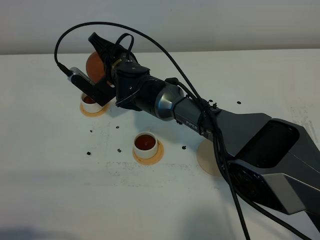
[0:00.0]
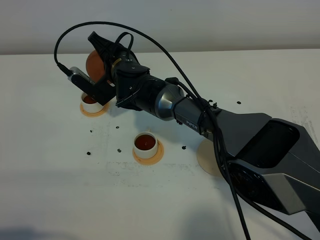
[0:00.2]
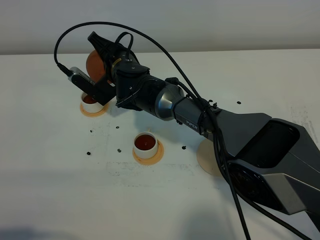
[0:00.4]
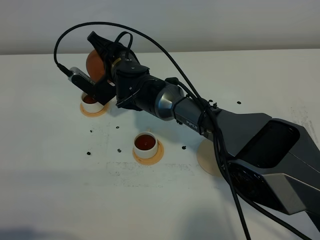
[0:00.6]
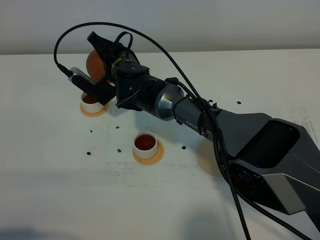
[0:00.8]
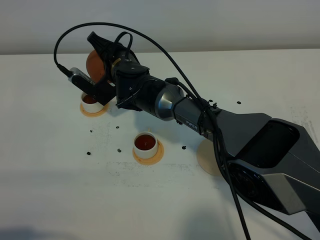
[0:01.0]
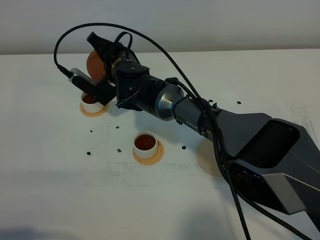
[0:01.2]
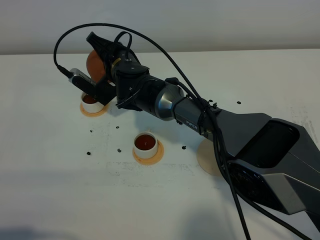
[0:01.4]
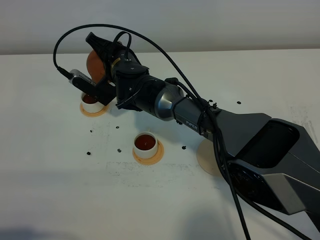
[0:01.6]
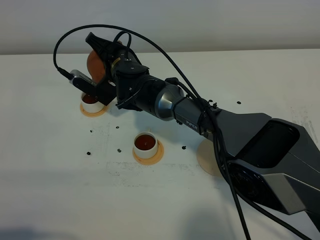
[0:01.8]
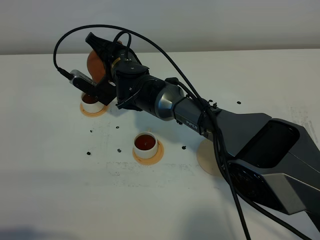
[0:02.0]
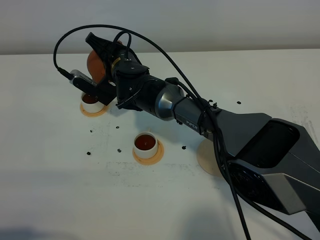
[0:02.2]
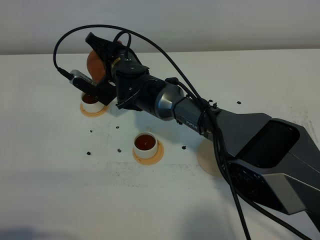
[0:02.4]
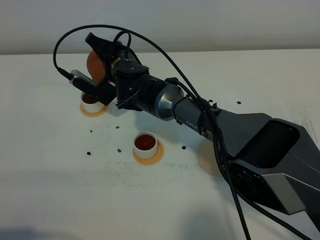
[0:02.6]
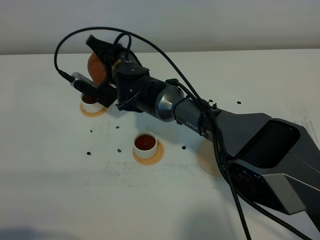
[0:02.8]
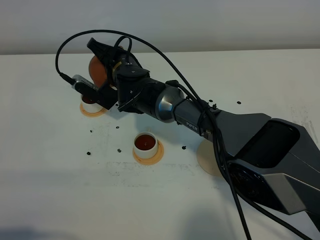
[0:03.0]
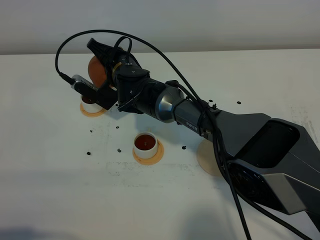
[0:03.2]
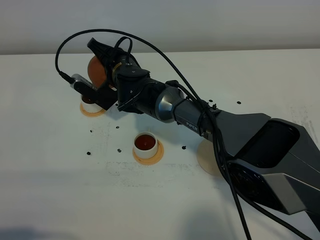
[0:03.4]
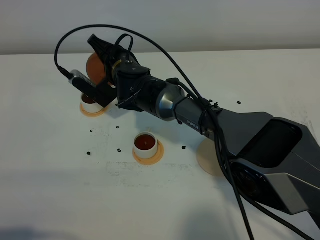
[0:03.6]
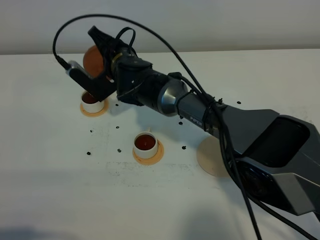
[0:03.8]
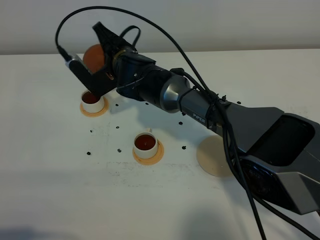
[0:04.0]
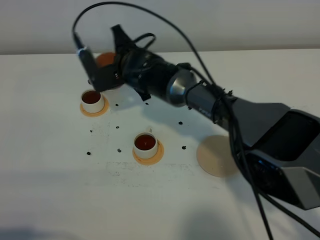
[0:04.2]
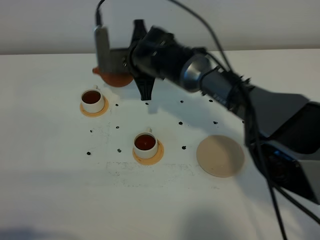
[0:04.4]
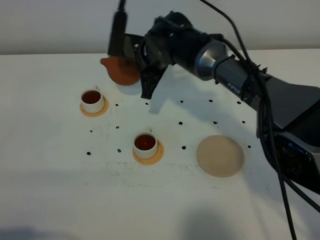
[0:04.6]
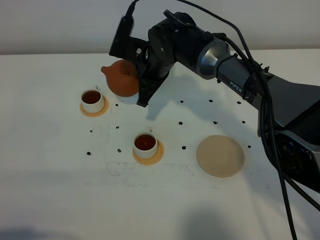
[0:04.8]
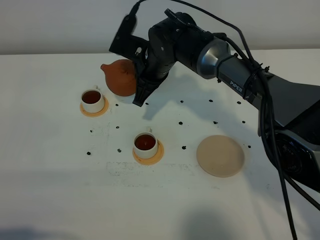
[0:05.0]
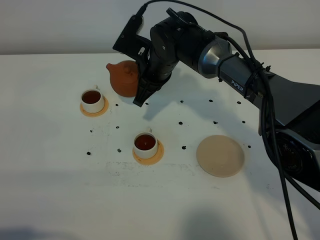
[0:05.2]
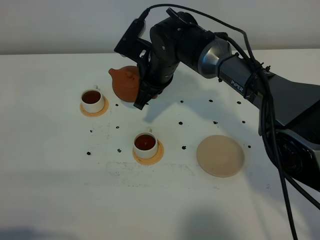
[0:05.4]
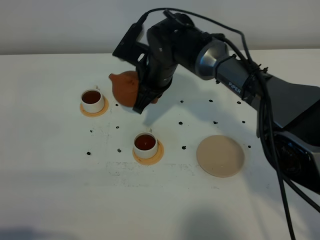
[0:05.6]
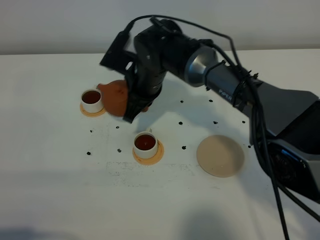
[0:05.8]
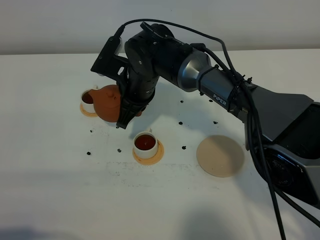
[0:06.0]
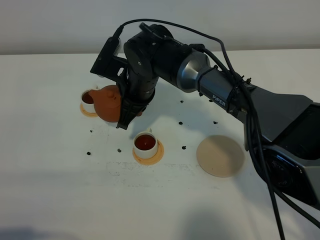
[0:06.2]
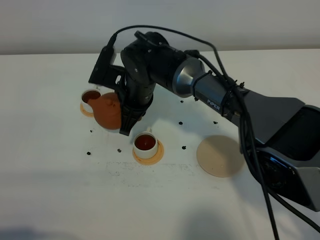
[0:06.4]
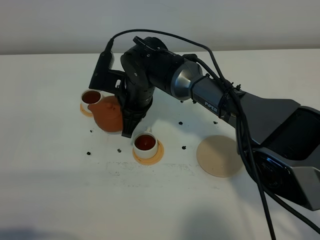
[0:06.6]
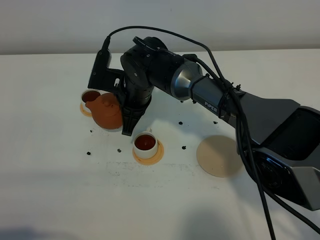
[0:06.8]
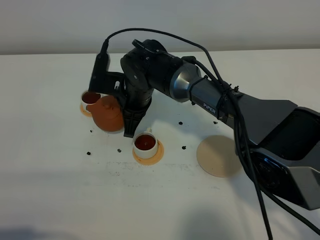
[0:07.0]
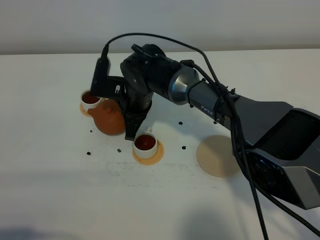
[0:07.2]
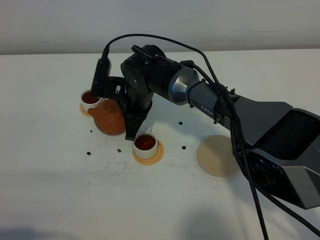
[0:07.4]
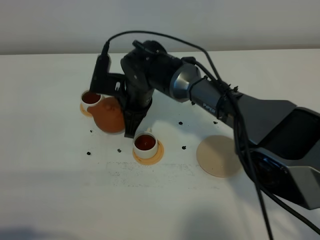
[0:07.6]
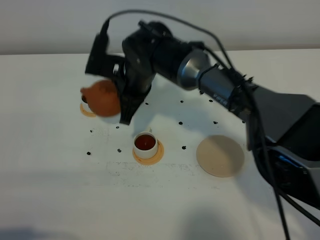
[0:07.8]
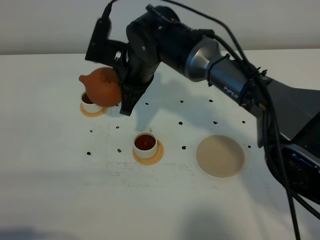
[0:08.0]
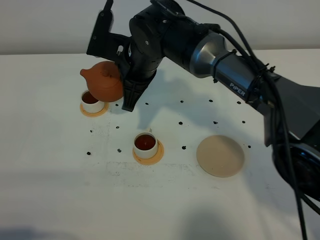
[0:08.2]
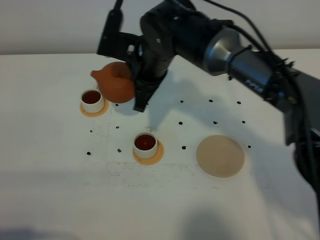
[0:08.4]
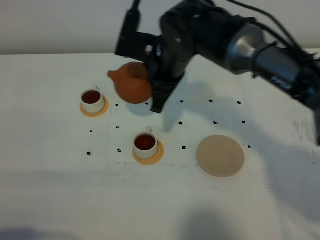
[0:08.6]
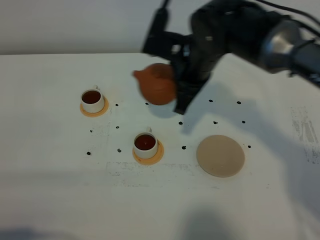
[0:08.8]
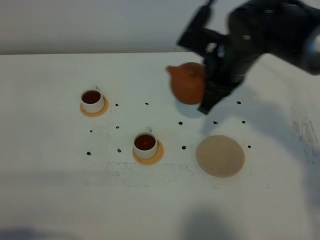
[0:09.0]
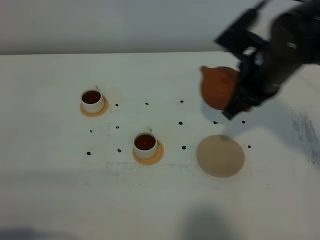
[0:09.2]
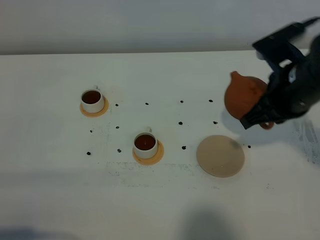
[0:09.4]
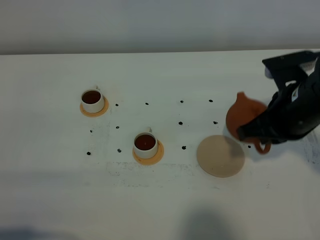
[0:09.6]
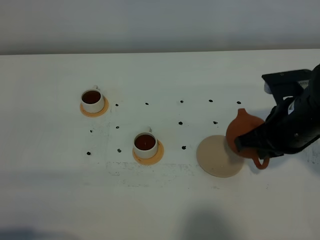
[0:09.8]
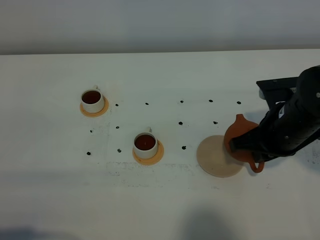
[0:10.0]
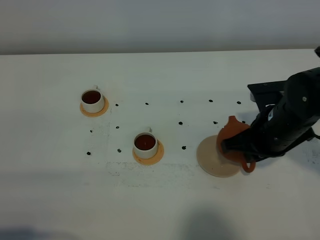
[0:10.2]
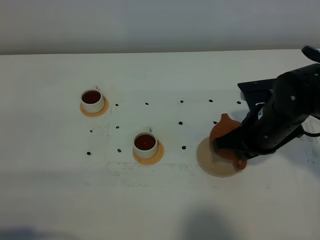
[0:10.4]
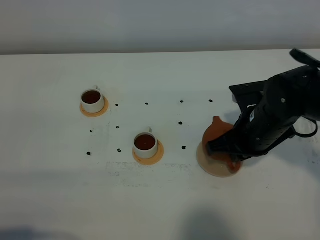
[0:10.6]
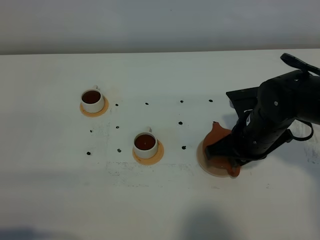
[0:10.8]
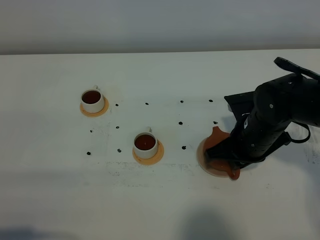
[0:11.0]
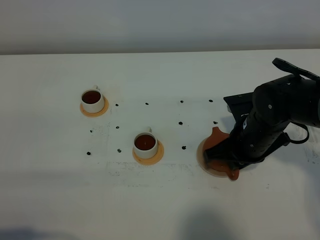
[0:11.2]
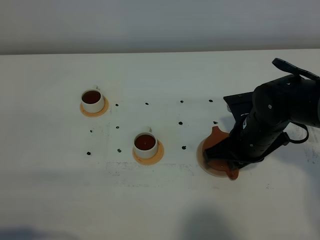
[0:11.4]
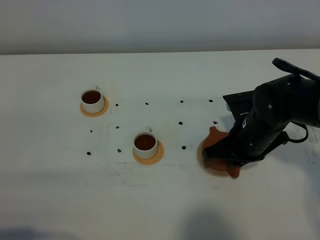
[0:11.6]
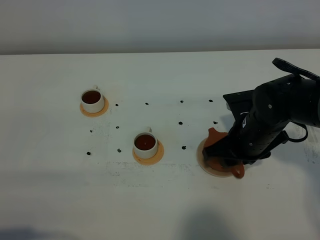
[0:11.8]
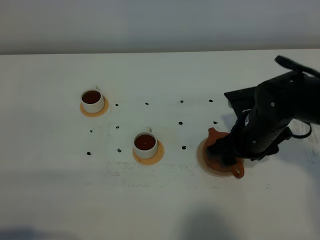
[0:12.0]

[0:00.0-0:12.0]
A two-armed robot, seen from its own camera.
Task of the whole recording: grasp the brown teapot and pour the tea into the two white teacups one by one, put the brown teapot back in its original place.
Step, 0:00.0 to 0:03.8: Pour tea into the teacup with the right gripper.
0:00.0 to 0:01.6: There are only small adjustments of the grippers.
0:01.6 to 0:03.0: Both grippers stay about where they are.
0:03.0 to 0:04.4: The right gripper goes some 5 cm to the right.
0:04.4 to 0:06.0: The right gripper shifts by roughly 5 cm.
0:06.0 to 0:07.6: There are only small adjustments of the grippers.
0:07.6 to 0:09.0: The right gripper shifts roughly 20 cm to the right and upward.
0:09.0 to 0:10.4: The right gripper is displaced downward and backward by about 10 cm.
0:10.4 to 0:12.0: The right gripper opens up.

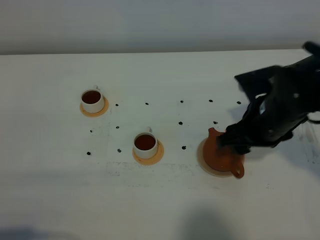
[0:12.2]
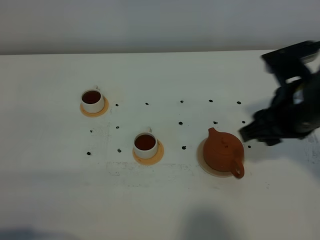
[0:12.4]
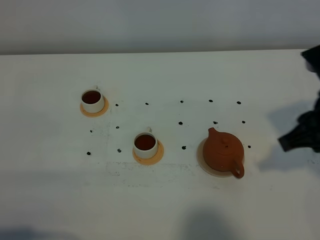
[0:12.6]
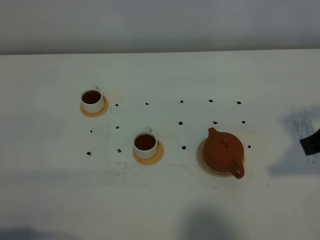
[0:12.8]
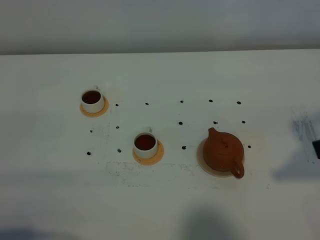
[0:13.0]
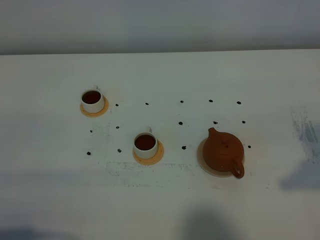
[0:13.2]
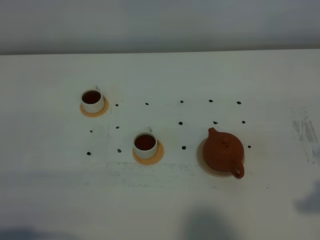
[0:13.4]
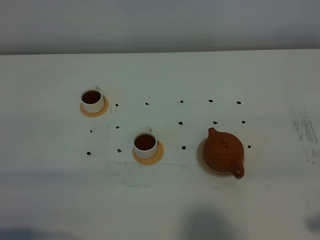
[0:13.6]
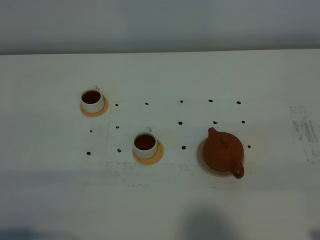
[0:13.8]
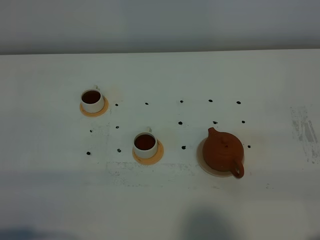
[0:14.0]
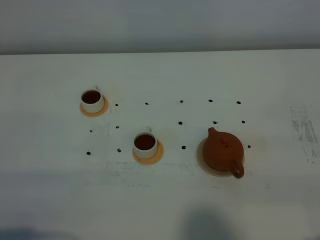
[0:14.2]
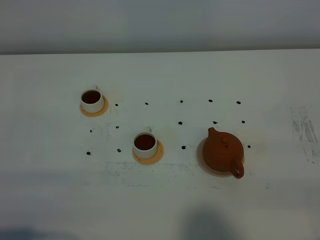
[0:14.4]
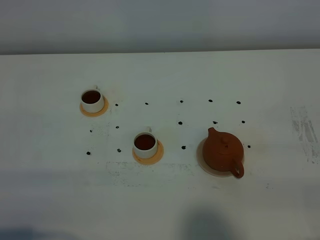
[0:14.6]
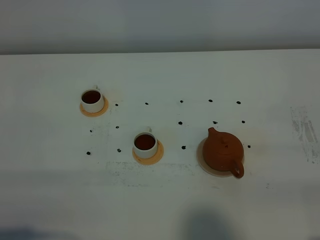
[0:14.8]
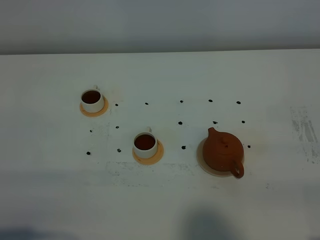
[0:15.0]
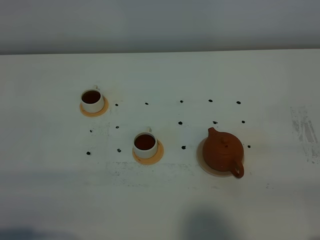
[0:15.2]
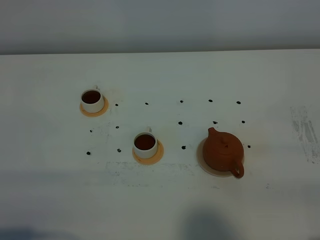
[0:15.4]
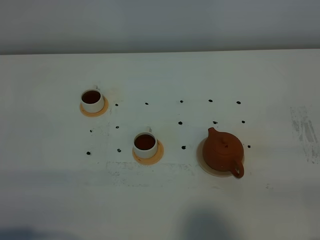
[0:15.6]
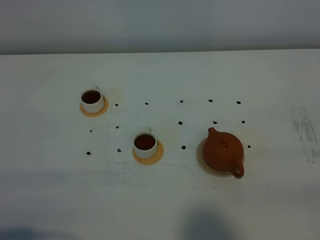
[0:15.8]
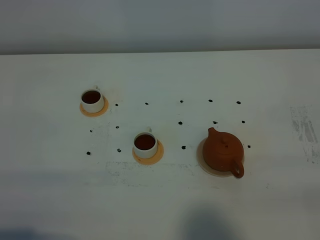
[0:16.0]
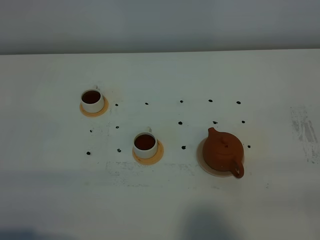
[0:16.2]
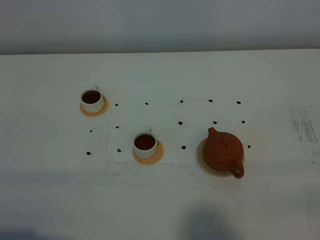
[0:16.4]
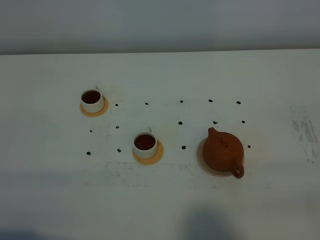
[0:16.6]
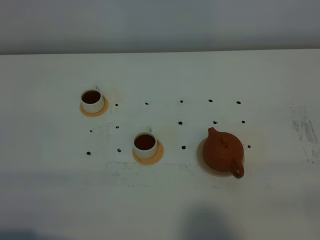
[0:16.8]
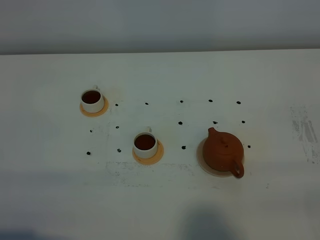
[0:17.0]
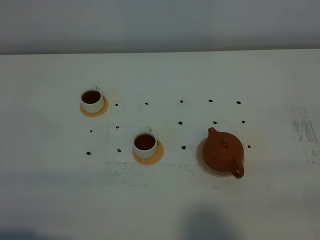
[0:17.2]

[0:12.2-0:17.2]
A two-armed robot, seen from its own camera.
Task of the whole recording: grasp the brown teapot and pour the tea into the two white teacups one by one, put the brown teapot back in its original place.
0:12.2 to 0:13.8: The right gripper heads backward and to the right, covering approximately 25 cm, and closes up.

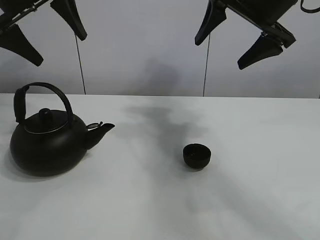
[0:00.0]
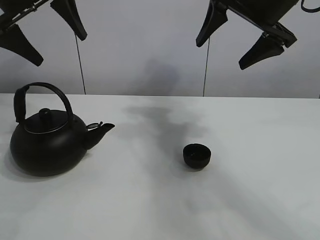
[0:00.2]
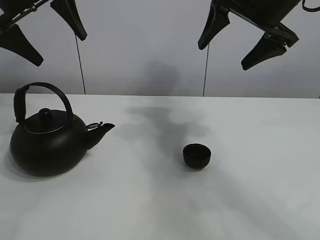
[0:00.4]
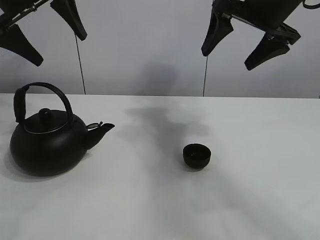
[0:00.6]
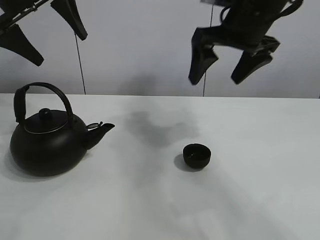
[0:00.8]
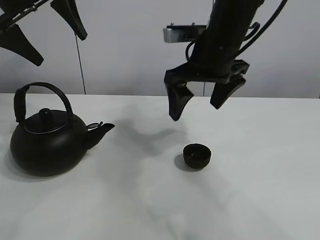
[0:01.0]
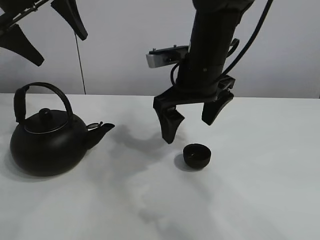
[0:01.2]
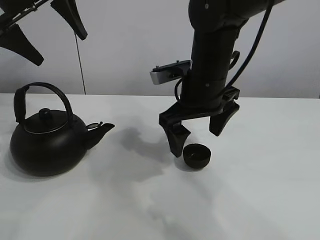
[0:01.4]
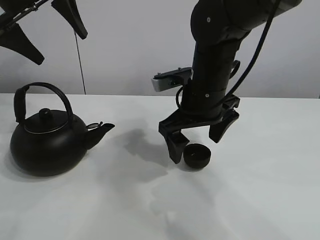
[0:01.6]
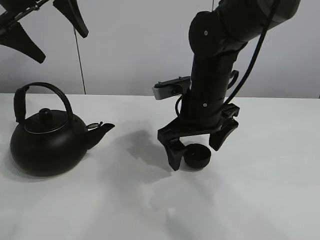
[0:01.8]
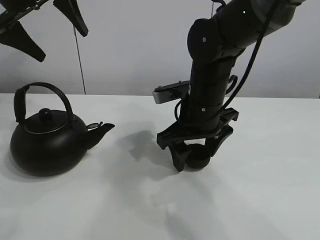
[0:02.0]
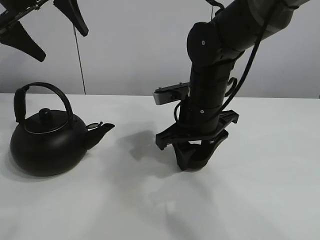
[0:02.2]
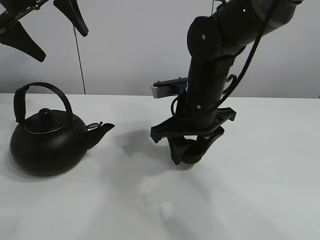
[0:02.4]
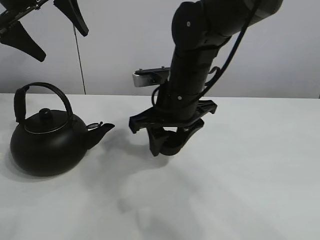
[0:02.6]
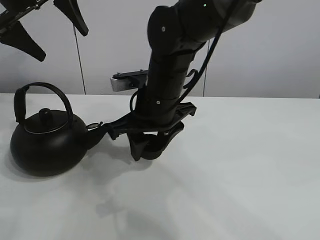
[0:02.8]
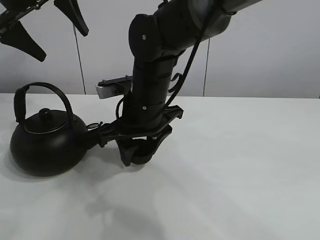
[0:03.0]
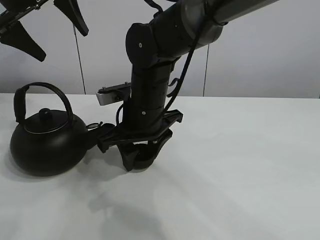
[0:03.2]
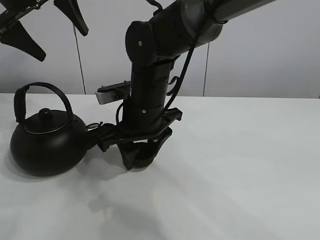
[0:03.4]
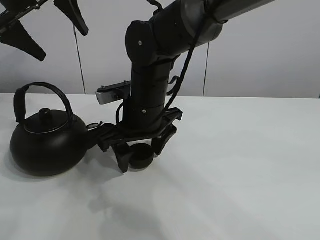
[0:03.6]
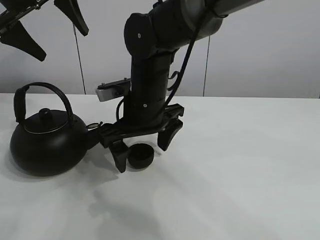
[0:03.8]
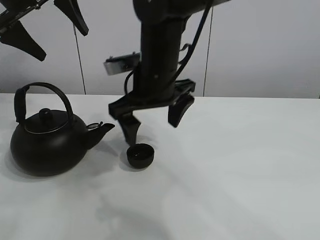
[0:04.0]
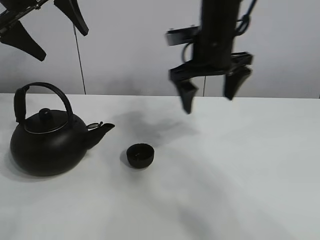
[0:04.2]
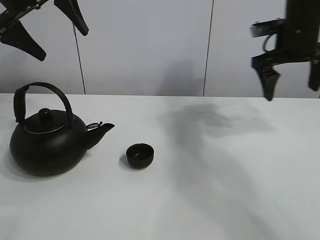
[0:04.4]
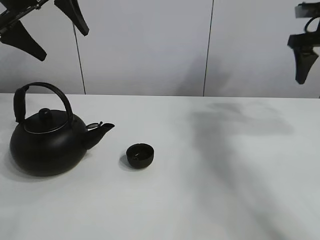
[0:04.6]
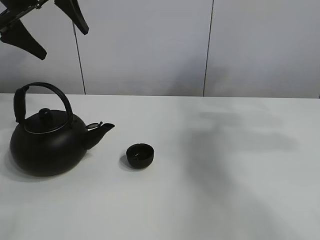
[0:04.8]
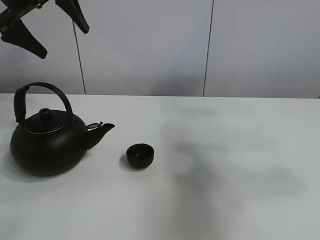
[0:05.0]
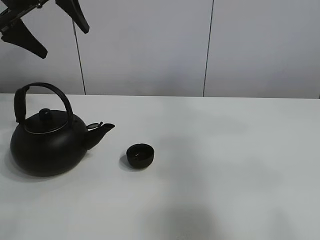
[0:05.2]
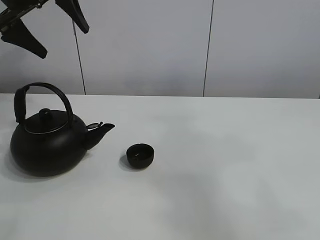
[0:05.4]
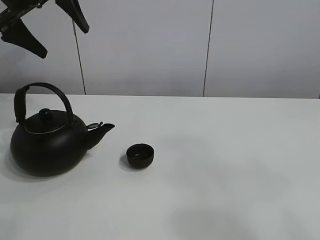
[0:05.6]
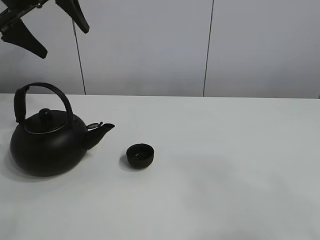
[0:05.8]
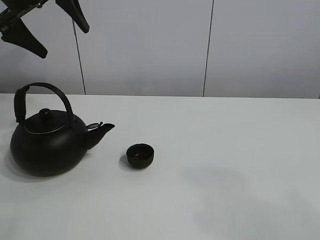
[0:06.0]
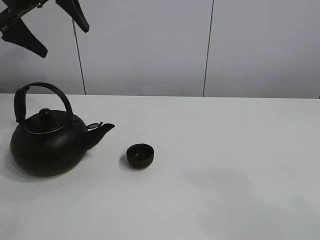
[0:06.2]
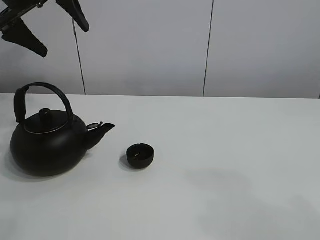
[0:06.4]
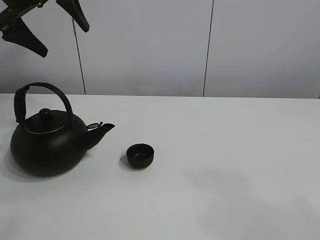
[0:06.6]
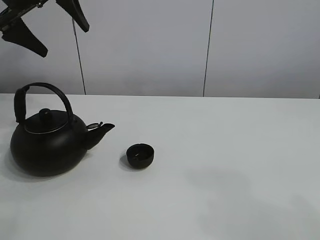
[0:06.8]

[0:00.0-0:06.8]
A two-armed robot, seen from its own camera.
Task of the whole recording: pour tea into the teacup.
Step, 0:00.0 to 0:02.2: Pick up the teacup with the right gripper.
Step, 0:02.6 to 0:03.4: Place the teacup in the center of view with the right gripper.
0:01.4 to 0:02.8: The right gripper is displaced to the left by approximately 5 cm, and closes.
0:02.8 to 0:04.0: The right gripper opens its fingers.
0:04.0 to 0:05.4: The right gripper goes roughly 50 cm backward, to the right and upward.
0:05.4 to 0:06.8: The right gripper is displaced downward and backward by roughly 10 cm.
